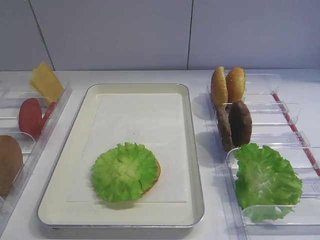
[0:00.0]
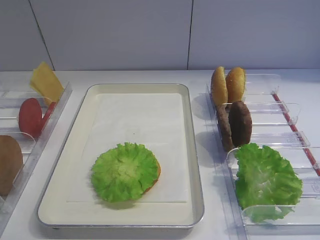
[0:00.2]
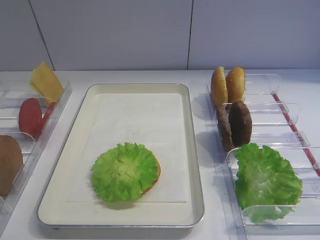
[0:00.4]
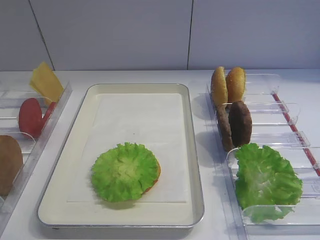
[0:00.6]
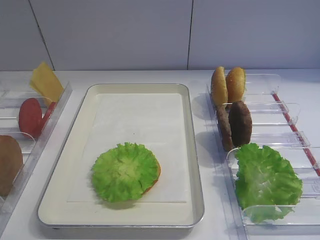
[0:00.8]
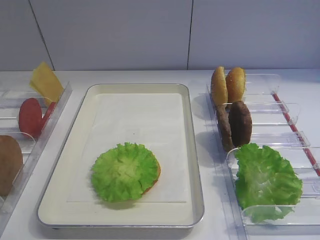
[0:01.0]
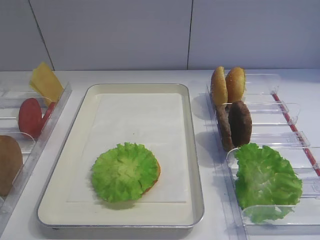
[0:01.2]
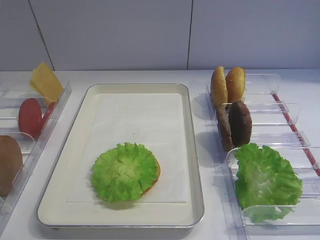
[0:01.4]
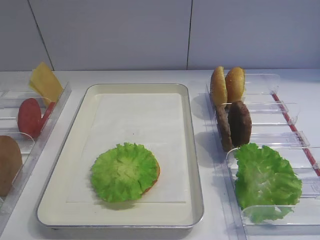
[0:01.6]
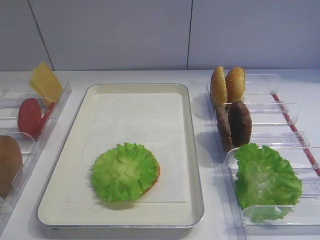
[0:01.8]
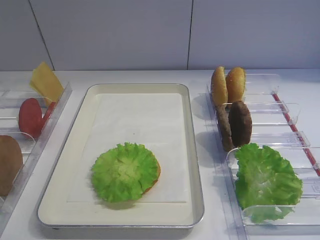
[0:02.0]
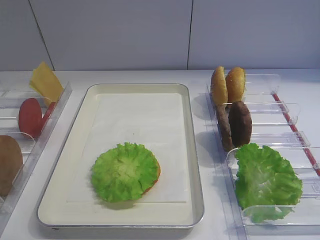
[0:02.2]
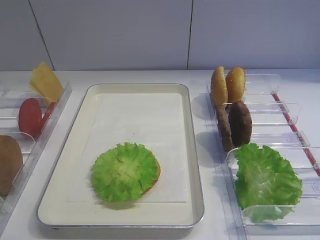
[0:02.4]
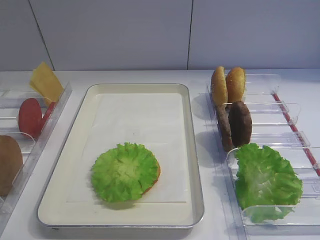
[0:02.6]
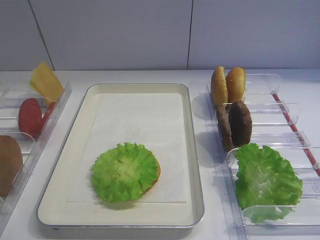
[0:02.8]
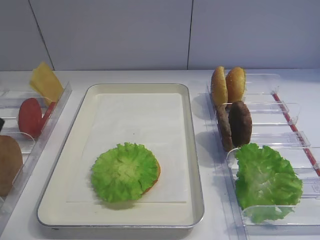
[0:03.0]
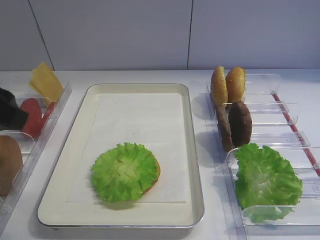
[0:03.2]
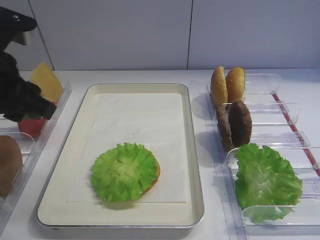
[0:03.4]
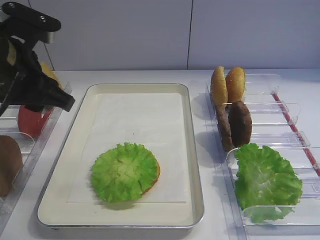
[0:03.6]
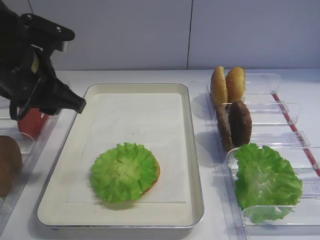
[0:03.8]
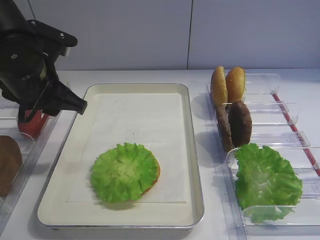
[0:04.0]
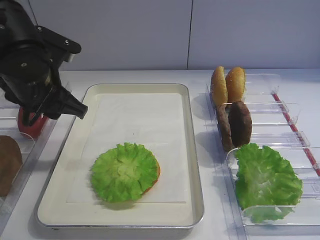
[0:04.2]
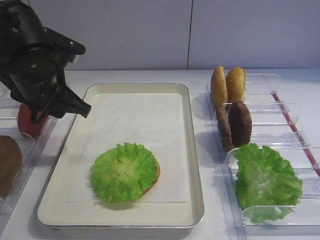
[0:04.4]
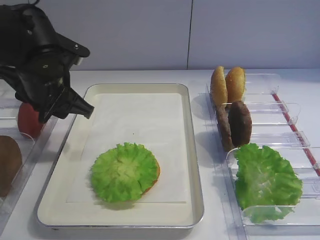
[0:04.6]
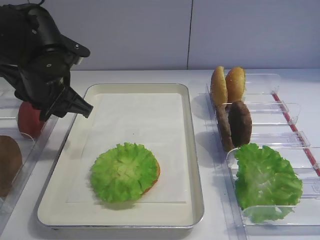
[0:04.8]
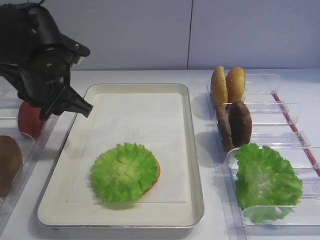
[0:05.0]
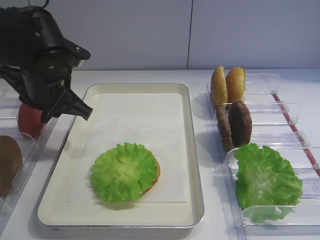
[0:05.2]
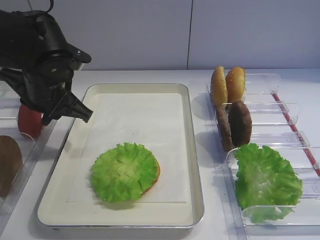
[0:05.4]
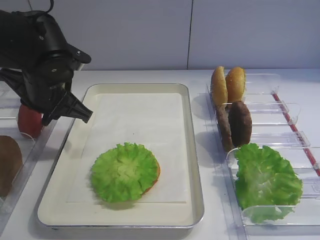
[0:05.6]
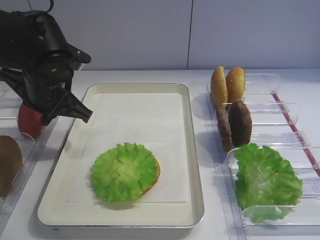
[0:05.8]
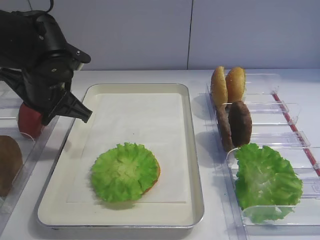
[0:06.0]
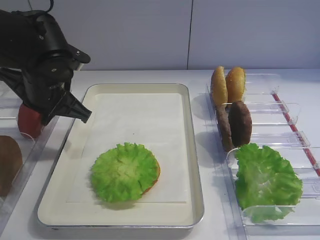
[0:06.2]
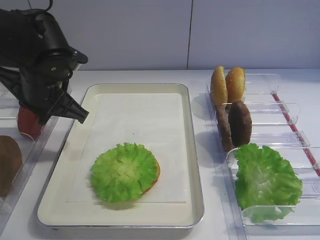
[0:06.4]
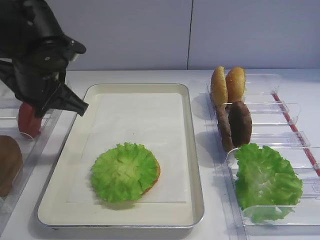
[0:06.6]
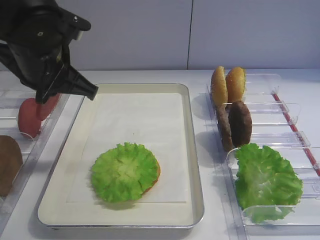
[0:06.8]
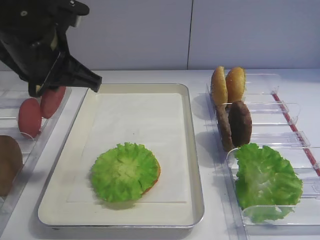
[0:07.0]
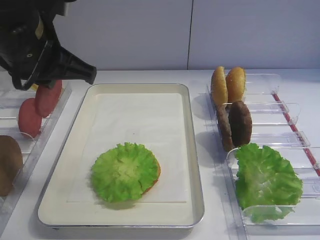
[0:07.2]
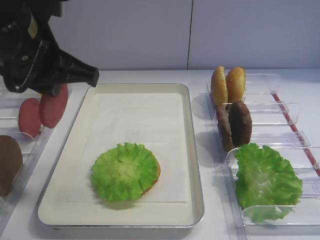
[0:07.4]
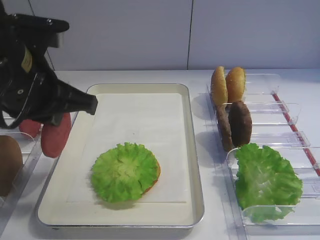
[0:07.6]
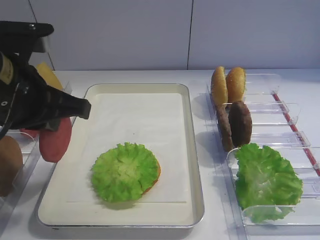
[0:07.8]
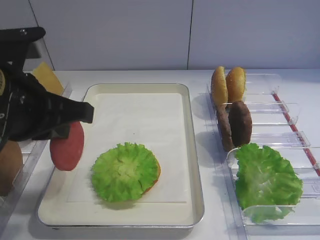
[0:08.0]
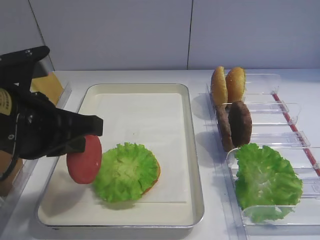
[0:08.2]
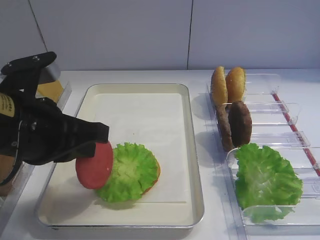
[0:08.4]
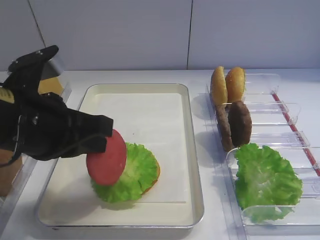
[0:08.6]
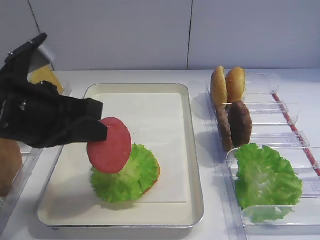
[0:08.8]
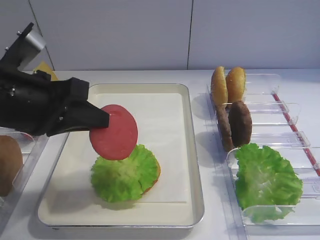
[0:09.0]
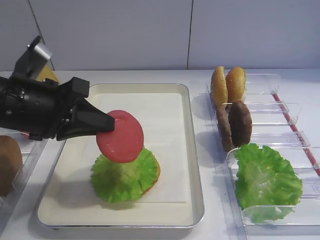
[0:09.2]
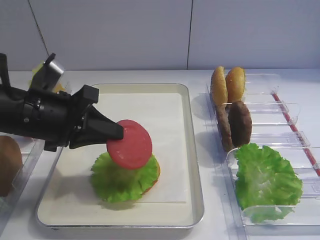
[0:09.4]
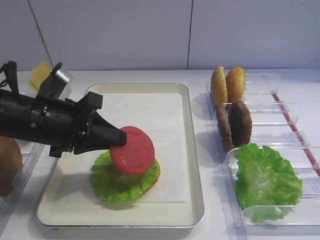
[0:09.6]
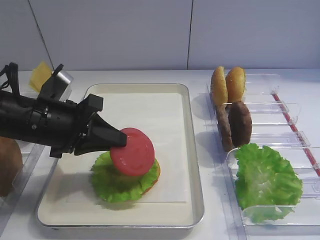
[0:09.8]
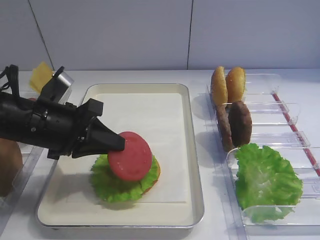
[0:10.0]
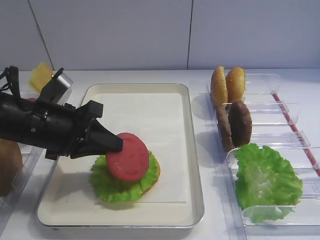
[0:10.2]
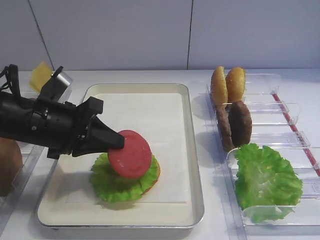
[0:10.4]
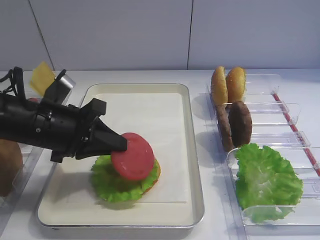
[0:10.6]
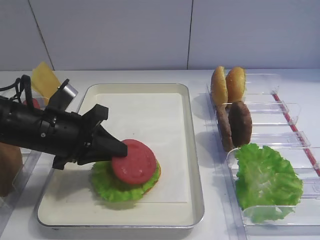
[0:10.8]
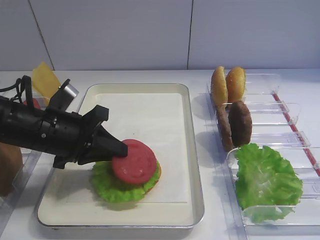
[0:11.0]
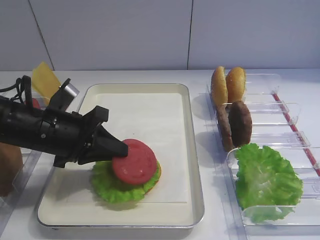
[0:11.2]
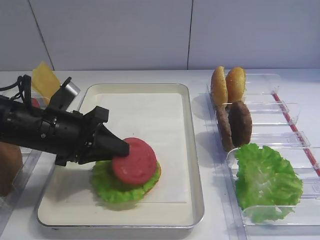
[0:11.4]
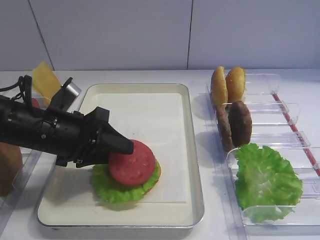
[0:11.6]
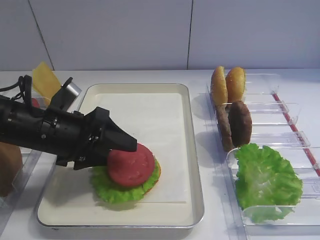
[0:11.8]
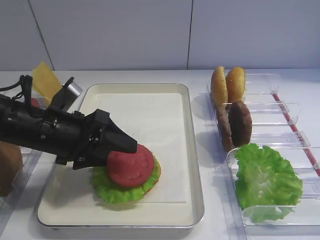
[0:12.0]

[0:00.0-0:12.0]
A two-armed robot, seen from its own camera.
Step, 0:00.0 to 0:06.8: Pick up the tomato slice with the left gripper.
0:03.0 to 0:04.4: The left gripper travels forward, to the right and downward by about 20 cm.
0:04.4 to 0:06.0: The left gripper closes up.
0:06.0 to 0:07.6: The left gripper heads backward and upward, covering about 10 cm.
0:09.0 to 0:10.4: The left gripper moves downward, some 5 cm.
0:10.4 to 0:12.0: The left gripper opens up.

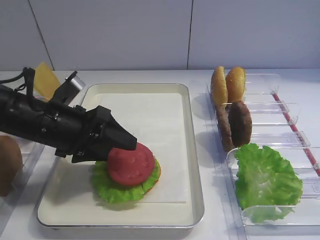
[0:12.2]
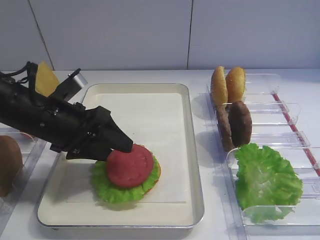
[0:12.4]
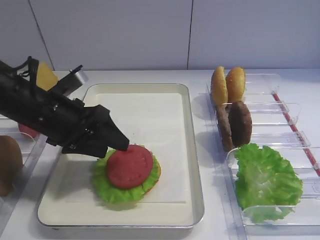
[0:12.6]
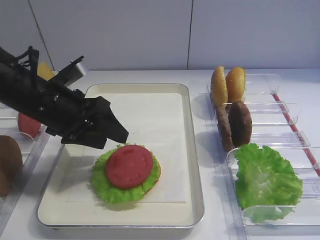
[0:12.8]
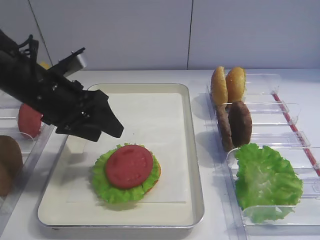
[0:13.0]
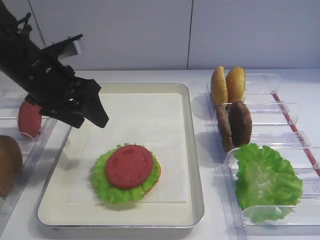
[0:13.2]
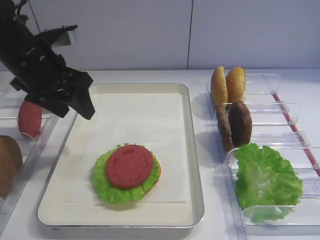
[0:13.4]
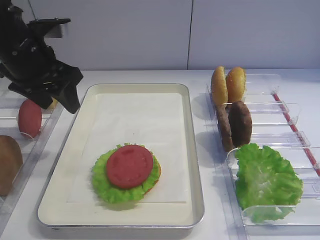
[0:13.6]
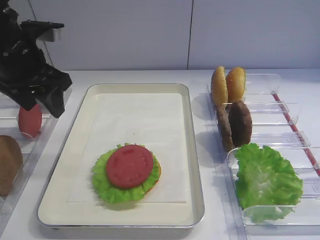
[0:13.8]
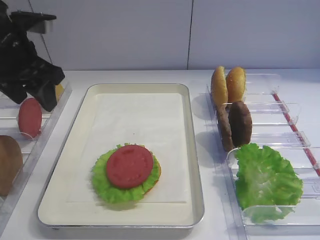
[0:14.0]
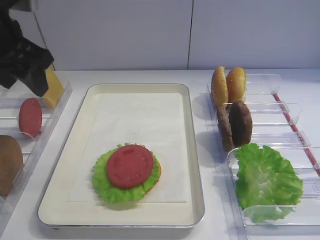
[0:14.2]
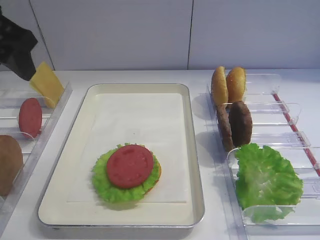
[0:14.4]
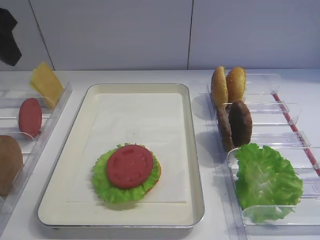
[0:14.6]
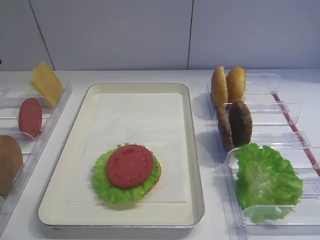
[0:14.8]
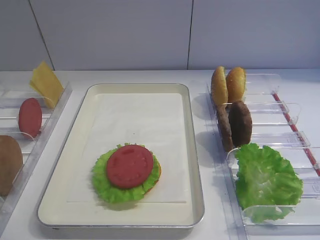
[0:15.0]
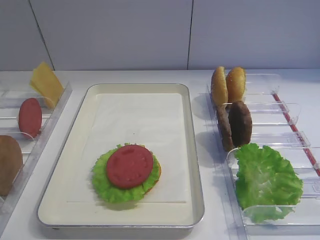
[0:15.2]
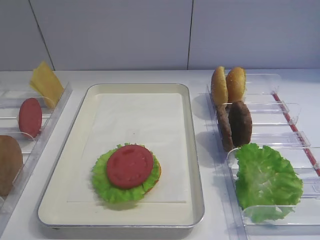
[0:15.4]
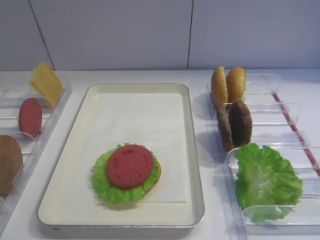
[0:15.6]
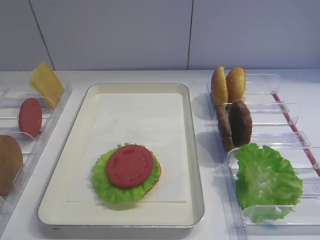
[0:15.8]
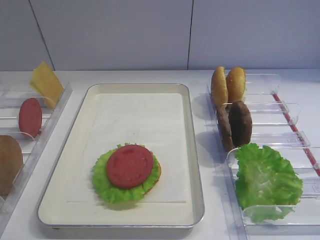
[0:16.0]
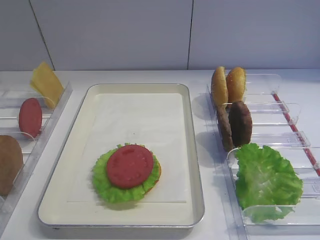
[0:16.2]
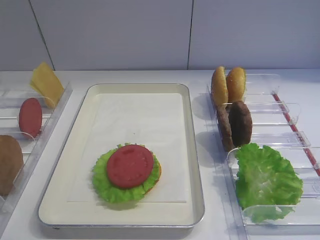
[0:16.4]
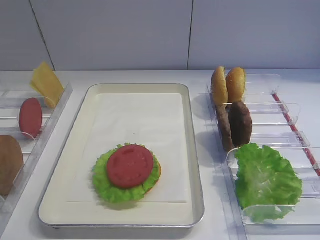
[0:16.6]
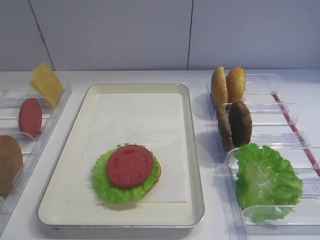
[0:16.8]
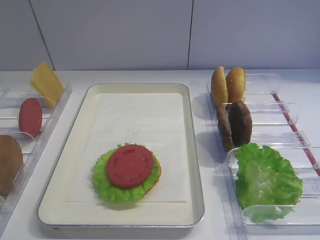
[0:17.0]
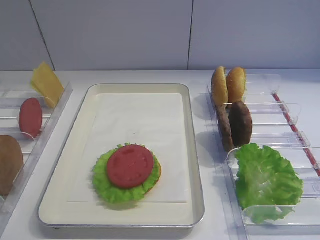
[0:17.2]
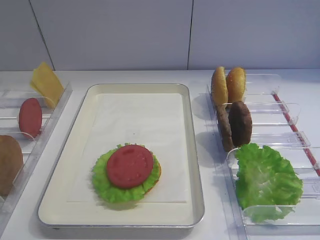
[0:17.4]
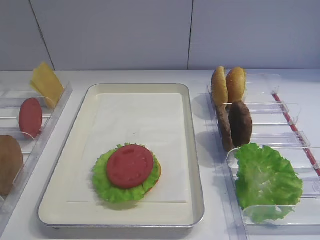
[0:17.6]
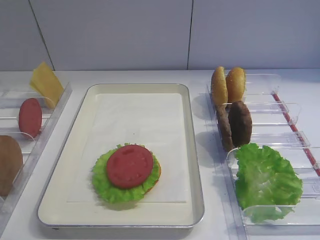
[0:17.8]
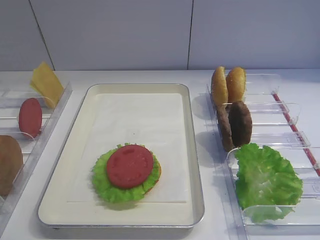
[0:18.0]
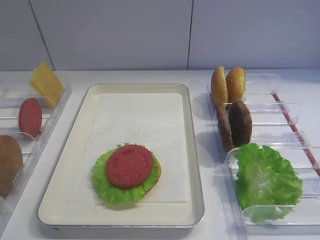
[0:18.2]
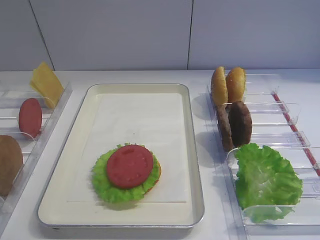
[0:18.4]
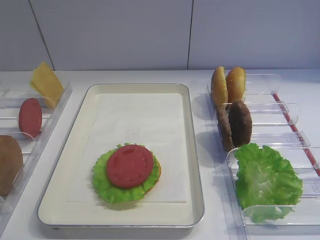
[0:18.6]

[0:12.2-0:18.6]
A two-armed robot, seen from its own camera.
0:12.2 to 0:13.8: The left gripper heads upward, forward and to the left, covering some 15 cm.
0:13.8 to 0:15.4: The left gripper moves backward, some 25 cm.

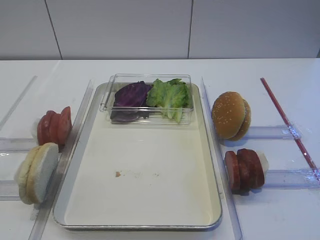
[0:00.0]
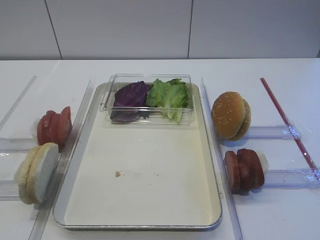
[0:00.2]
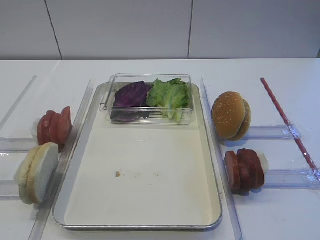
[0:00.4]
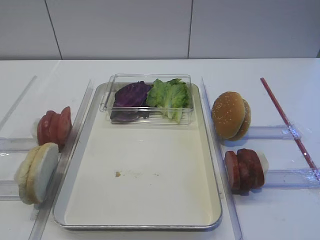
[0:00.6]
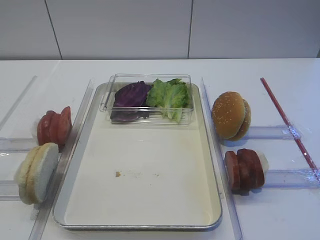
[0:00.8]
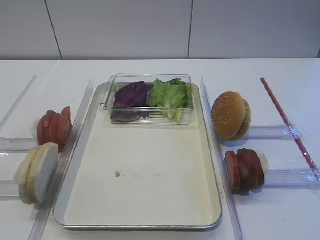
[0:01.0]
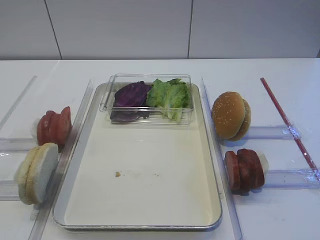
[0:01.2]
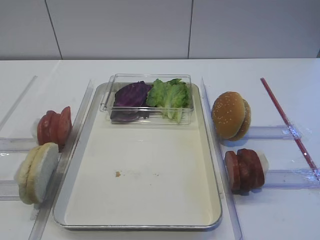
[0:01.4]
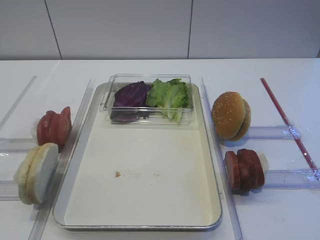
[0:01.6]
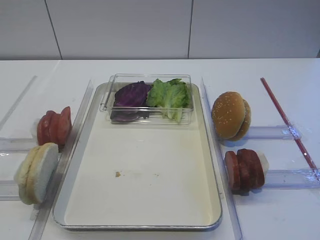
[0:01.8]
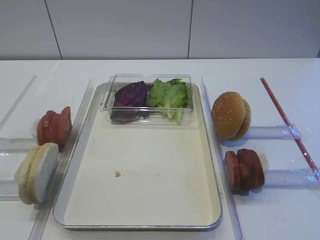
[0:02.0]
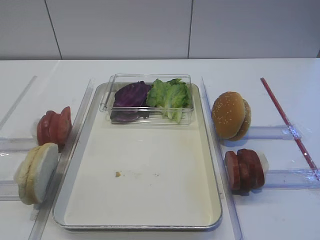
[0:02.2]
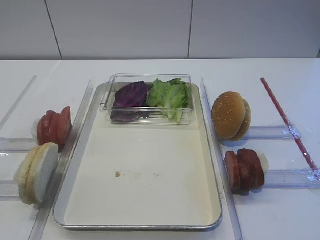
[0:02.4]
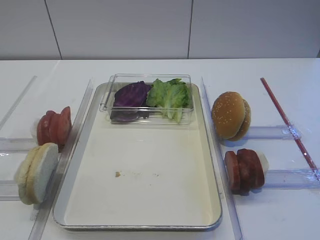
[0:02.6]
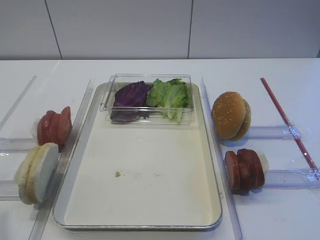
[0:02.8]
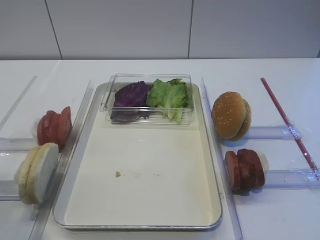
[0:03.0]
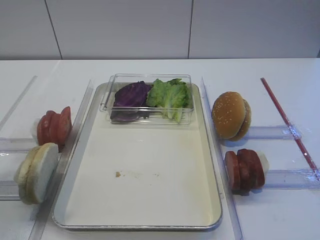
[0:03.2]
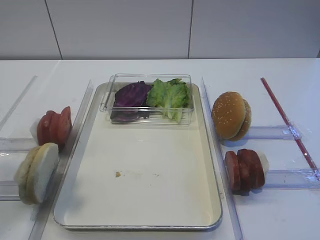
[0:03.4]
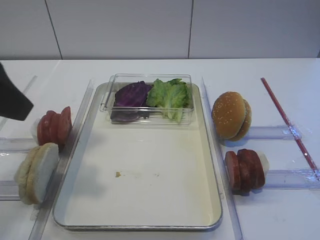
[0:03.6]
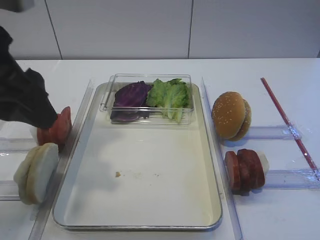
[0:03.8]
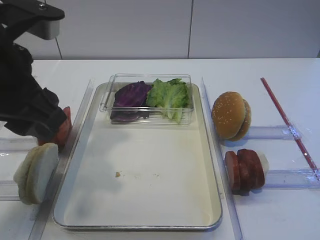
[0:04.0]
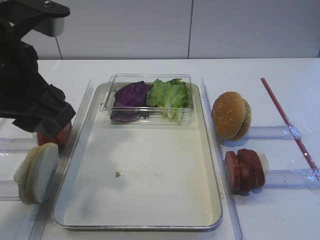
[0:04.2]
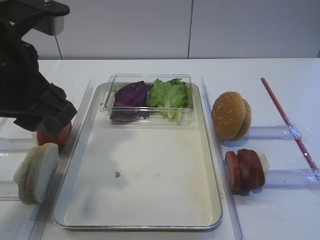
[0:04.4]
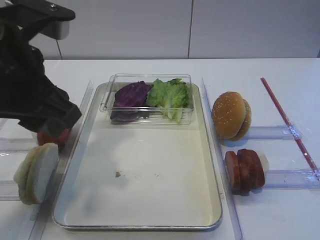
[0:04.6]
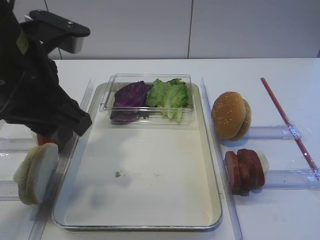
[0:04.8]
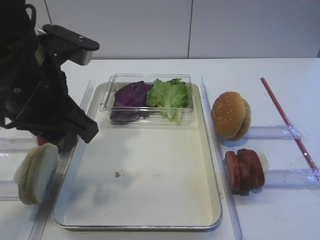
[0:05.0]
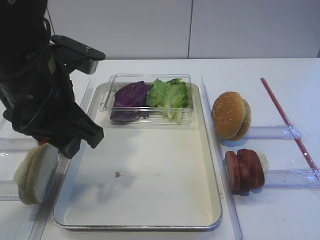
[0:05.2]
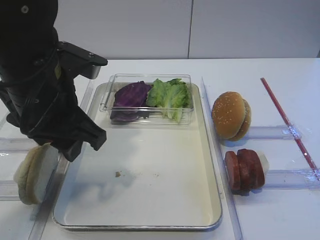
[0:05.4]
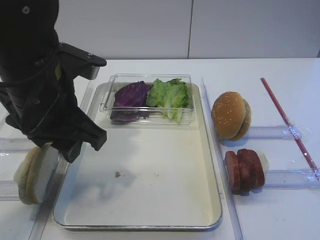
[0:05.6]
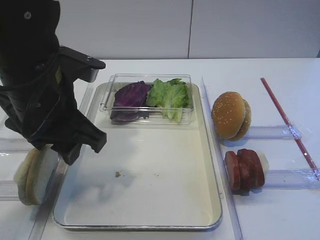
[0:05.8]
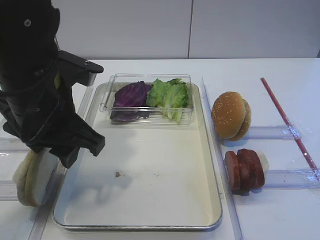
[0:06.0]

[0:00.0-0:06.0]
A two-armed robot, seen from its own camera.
0:01.6 to 0:03.0: The left gripper shifts approximately 15 cm upward and forward.
0:03.0 to 0:04.4: The left gripper travels forward and to the right by some 20 cm.
0:04.4 to 0:06.0: The left gripper is displaced downward by roughly 5 cm.
